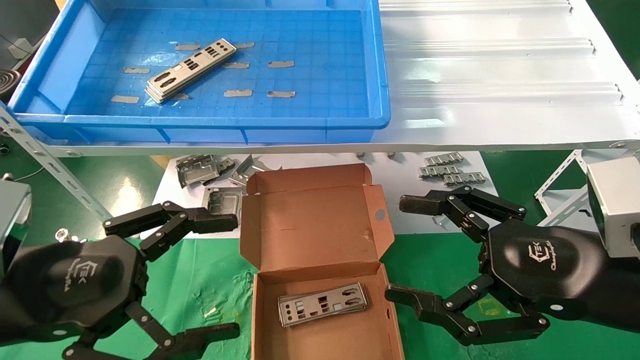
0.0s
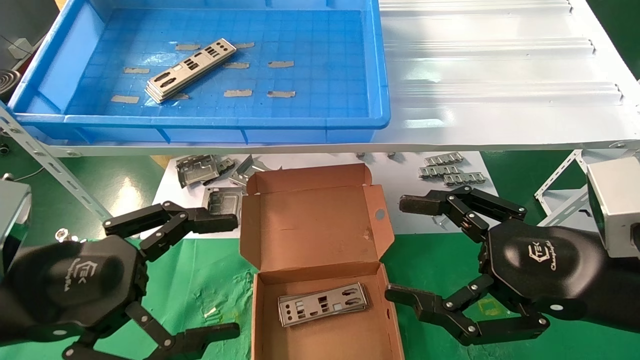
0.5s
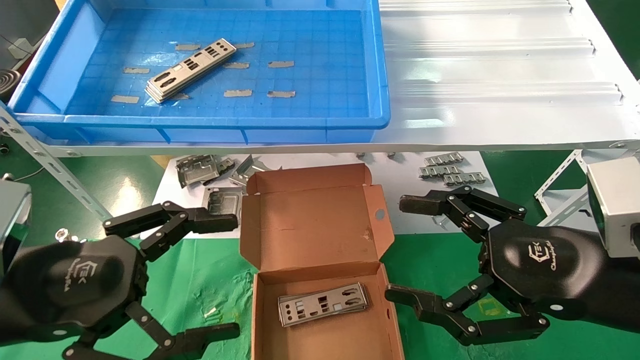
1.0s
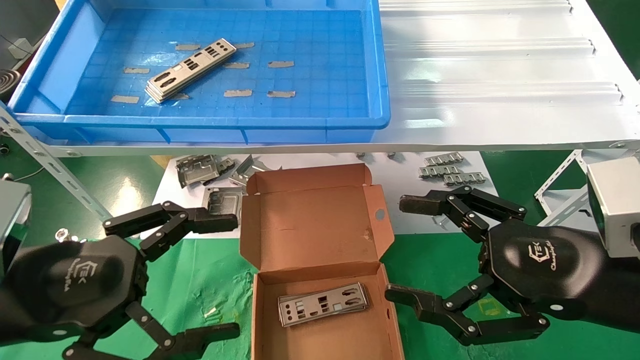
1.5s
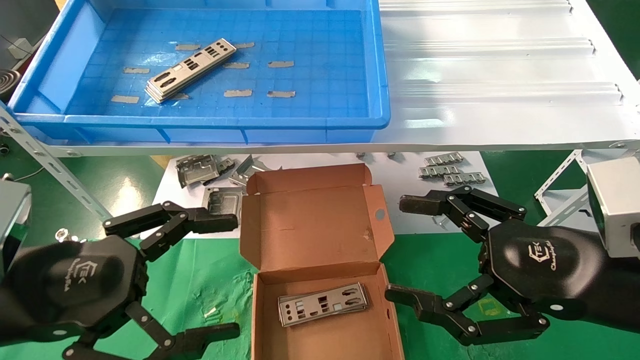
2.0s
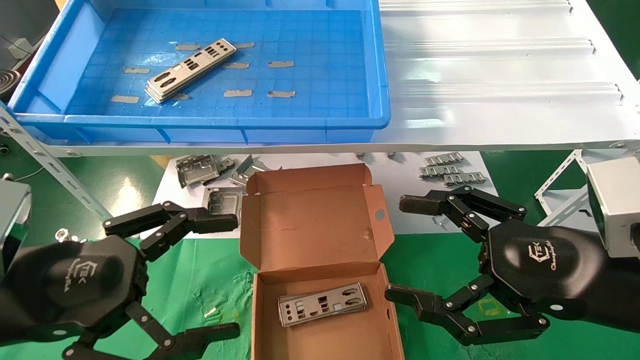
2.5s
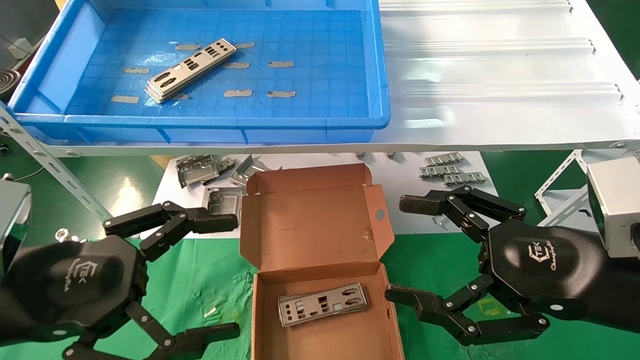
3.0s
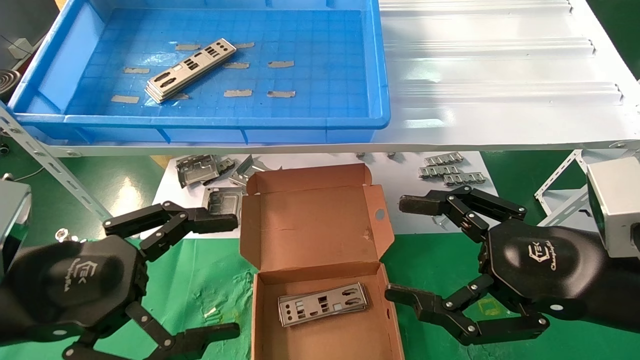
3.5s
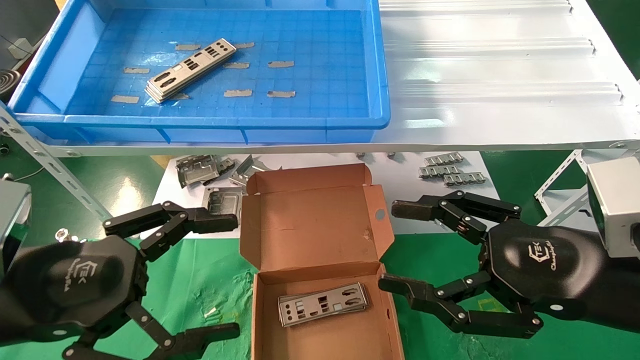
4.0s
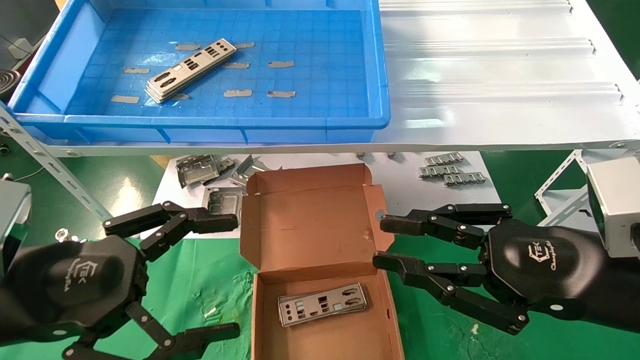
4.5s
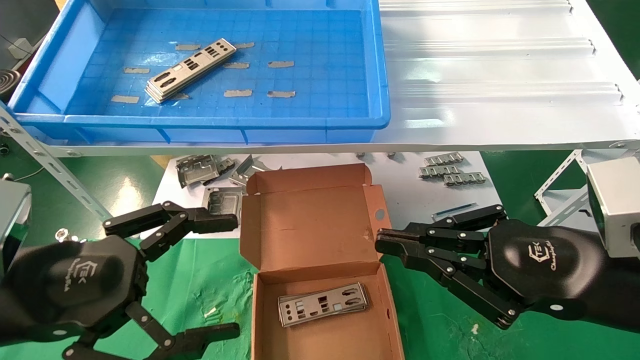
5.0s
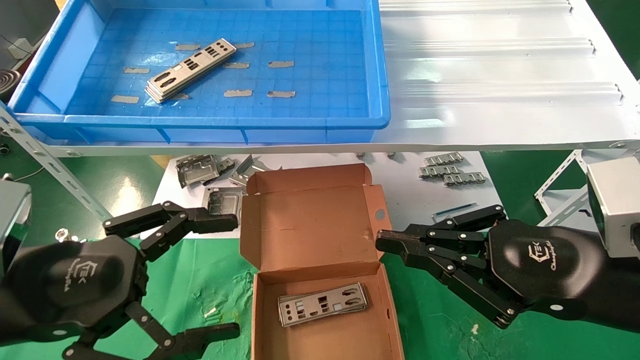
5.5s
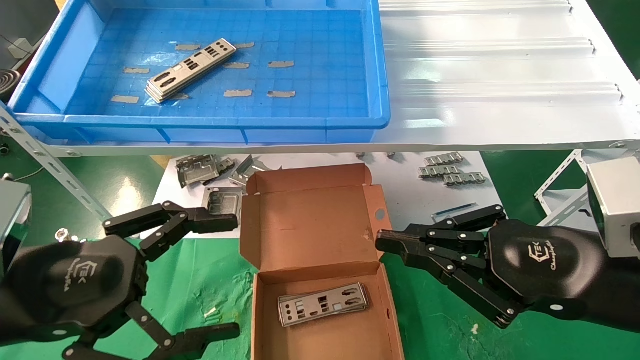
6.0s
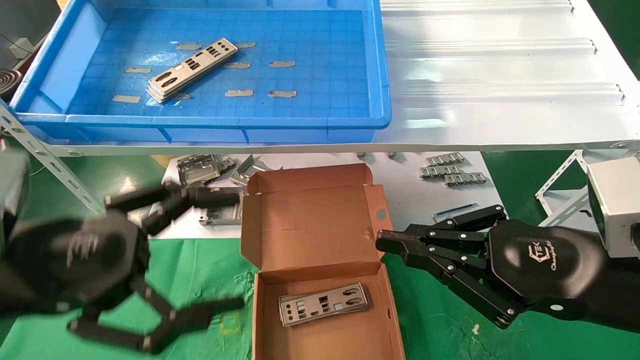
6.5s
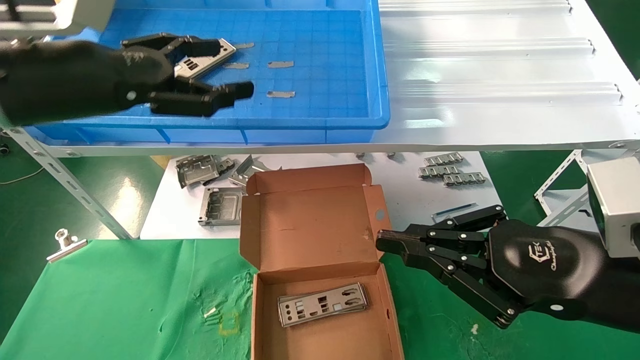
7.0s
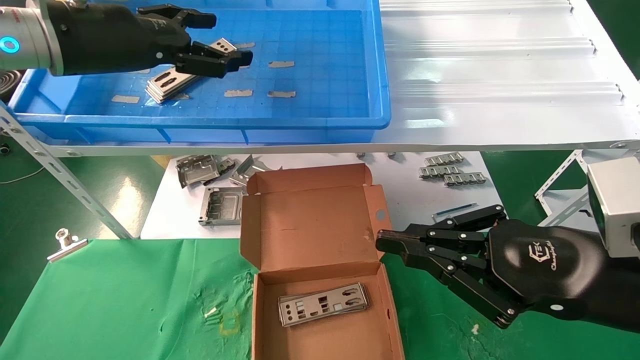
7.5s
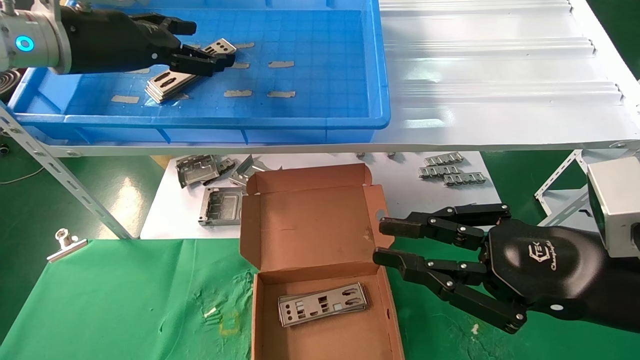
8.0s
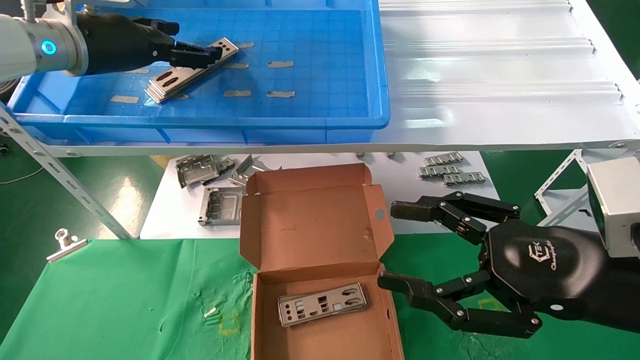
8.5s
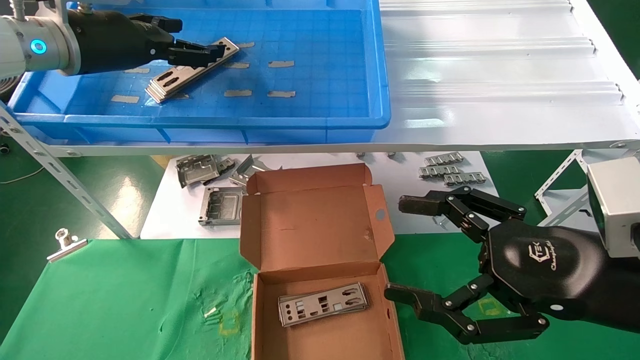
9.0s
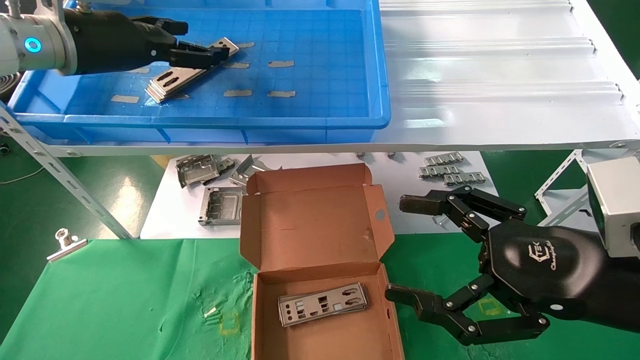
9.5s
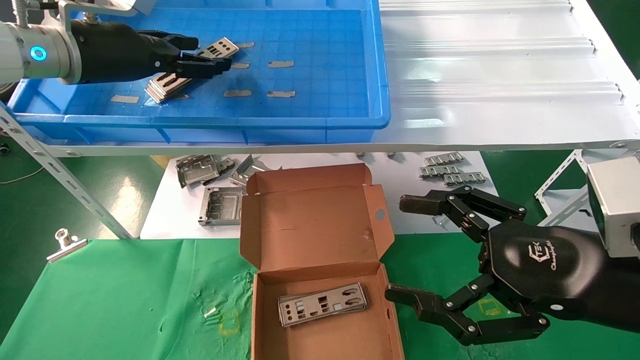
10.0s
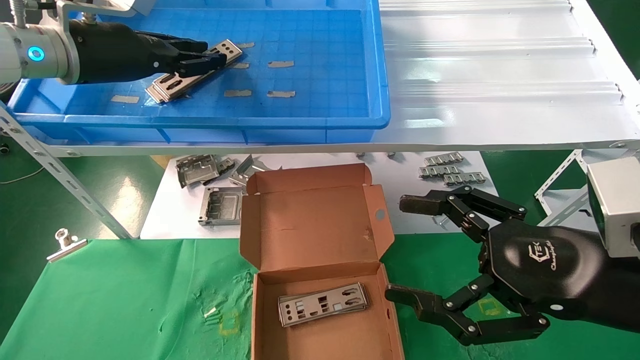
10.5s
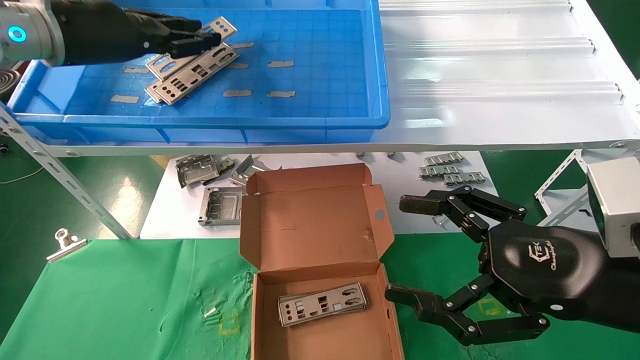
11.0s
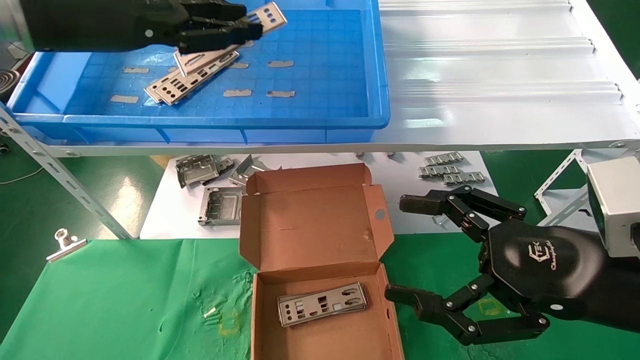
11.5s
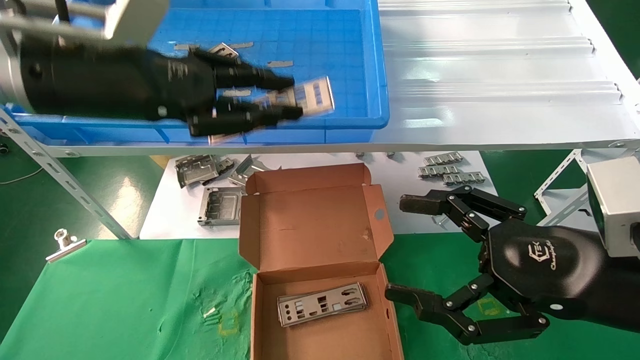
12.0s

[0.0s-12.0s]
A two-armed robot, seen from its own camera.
Task of the whole recording: pick up the parts on the tray and put them in the cardboard box.
Step, 7.0s to 10.5s: Pick up the IO bracket from the container box.
0.0s to 4.0s: Both grippers stay about where they are.
4.0s to 6.0s: The right gripper closes its fingers.
6.0s to 8.0s: The left gripper is displaced forward and upward by approximately 30 cm.
8.0s to 10.0s: The right gripper opens.
10.0s to 12.0s: The left gripper is displaced backward by roughly 10 cm, and closes up.

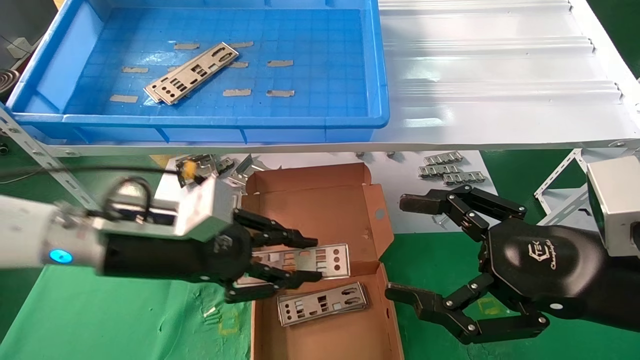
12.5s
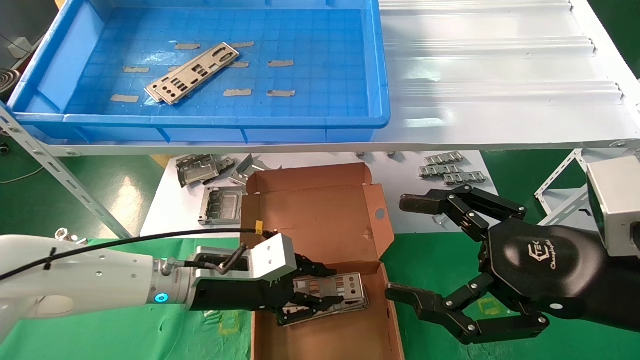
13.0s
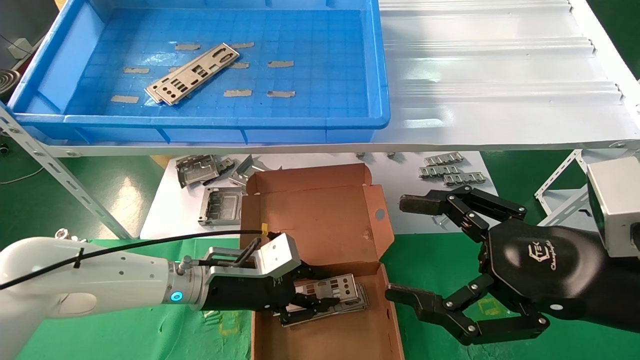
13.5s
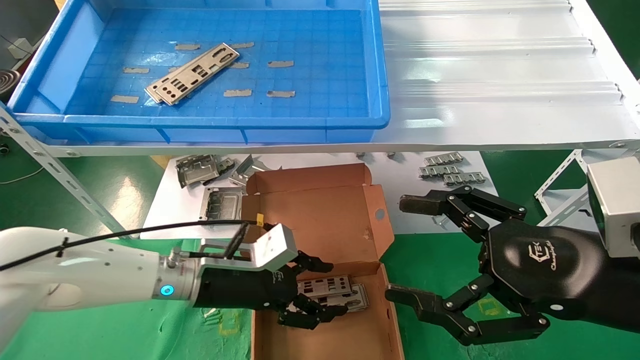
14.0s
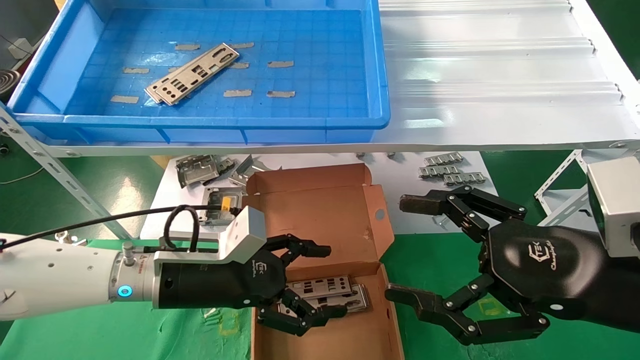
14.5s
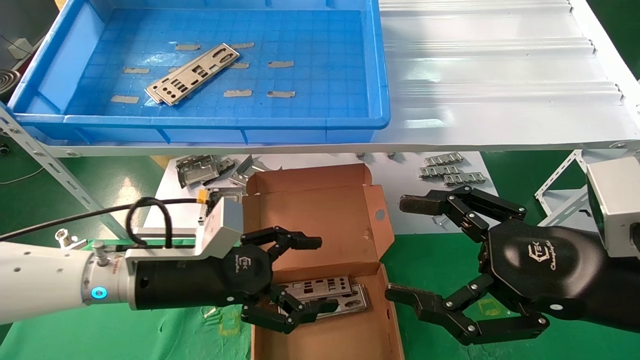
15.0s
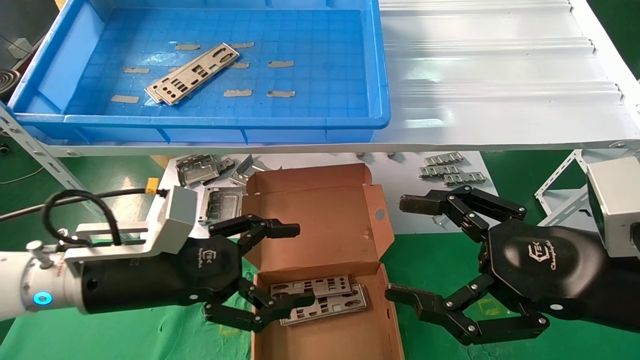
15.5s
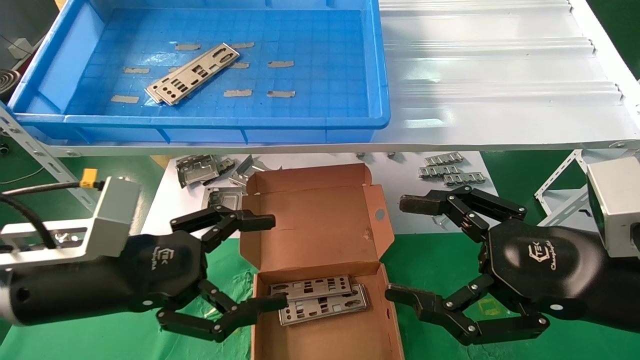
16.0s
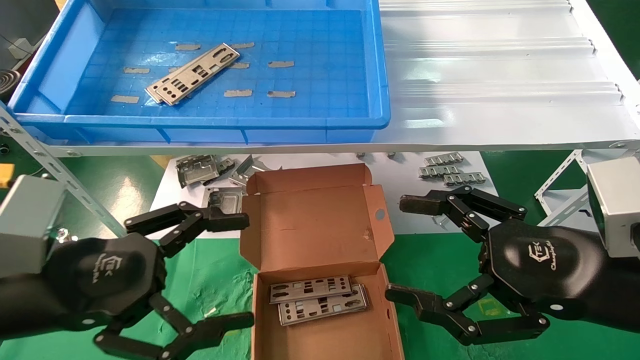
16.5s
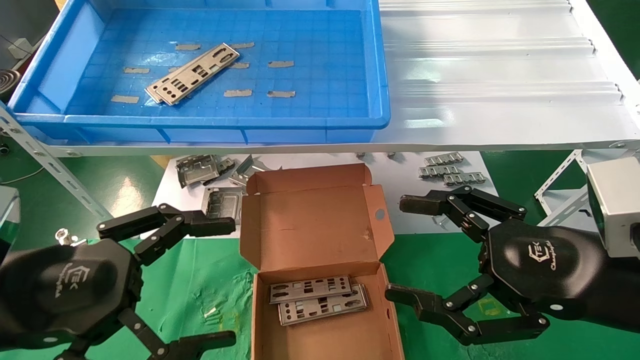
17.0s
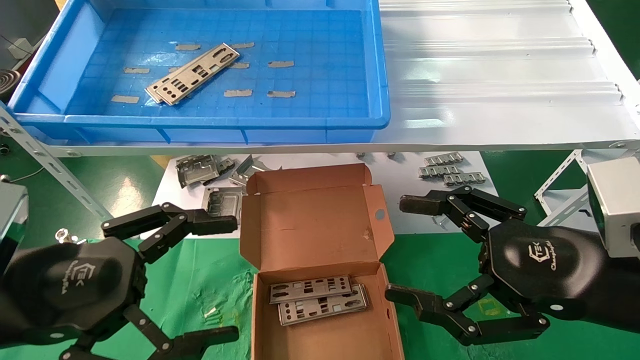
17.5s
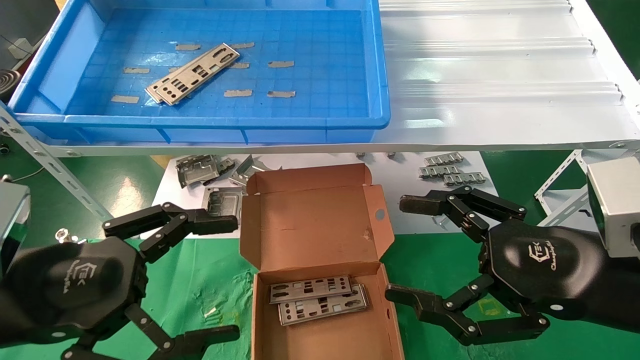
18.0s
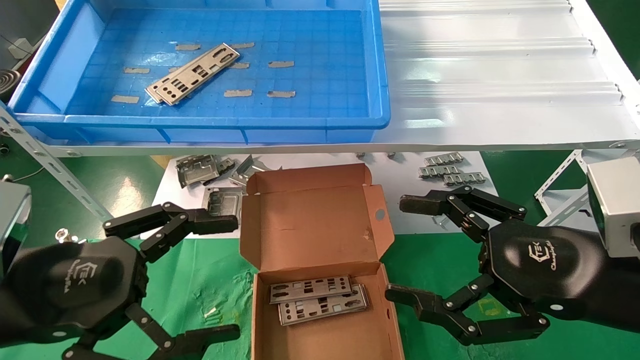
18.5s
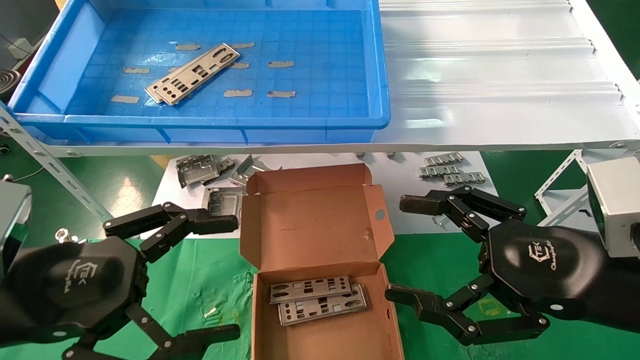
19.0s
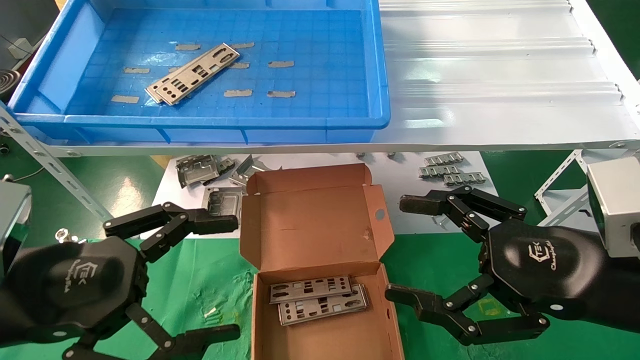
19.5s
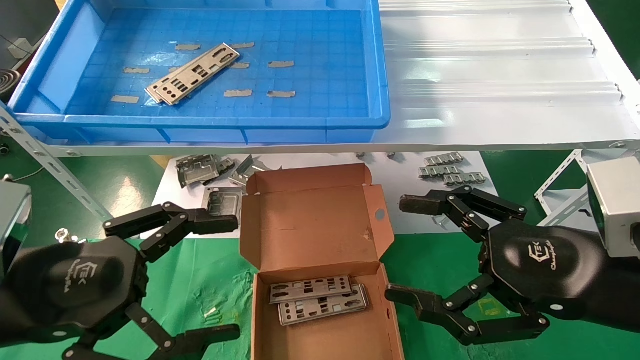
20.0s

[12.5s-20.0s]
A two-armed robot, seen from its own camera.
Task of the whole recording: pick up the parts on the tray and put them in the cardboard box.
12.5s to 14.5s: The left gripper moves downward, about 5 cm, and opens.
14.5s to 16.5s: The left gripper shifts some 20 cm backward, to the left and upward.
16.5s to 18.0s: The grippers make only small movements.
18.0s to 20.0s: Neither gripper changes place.
